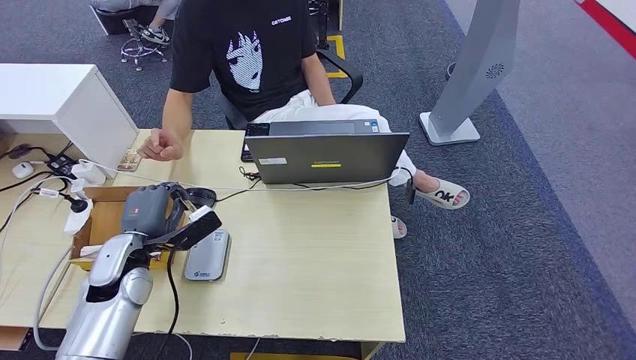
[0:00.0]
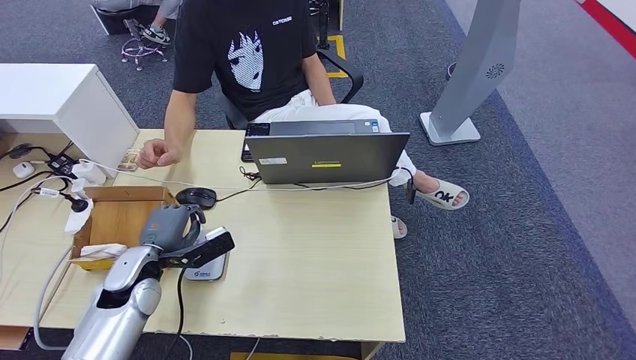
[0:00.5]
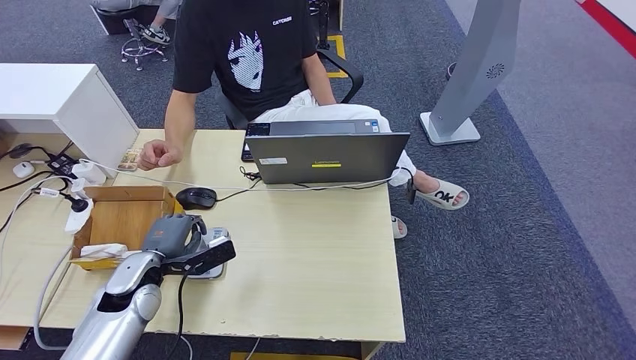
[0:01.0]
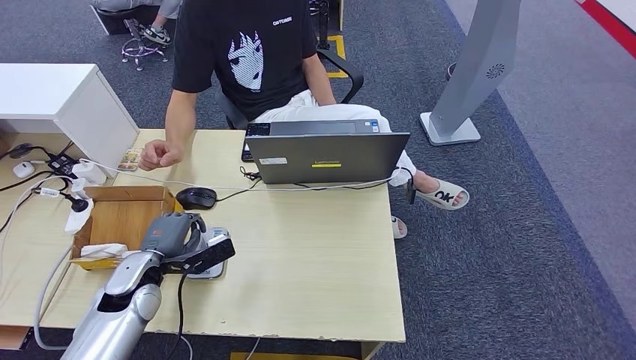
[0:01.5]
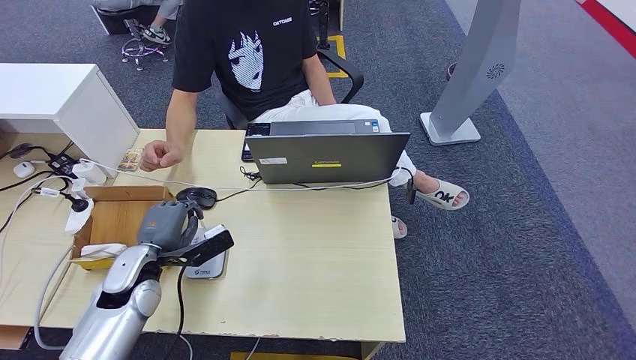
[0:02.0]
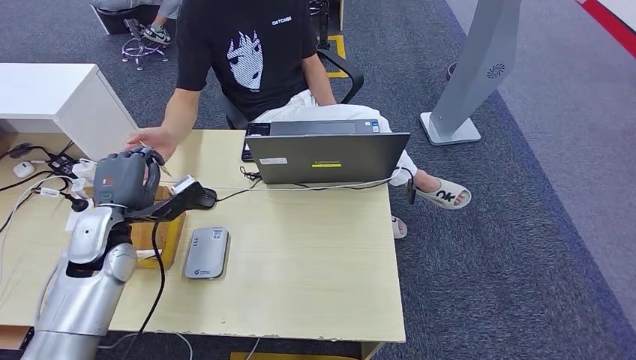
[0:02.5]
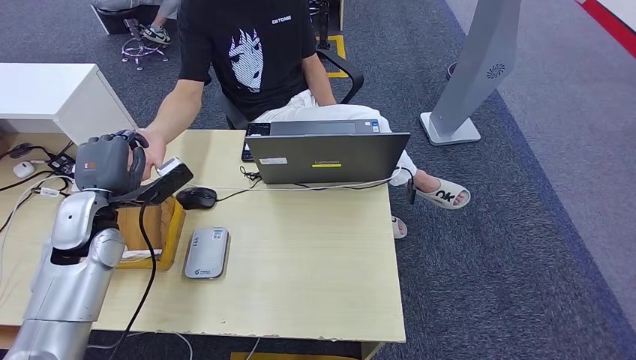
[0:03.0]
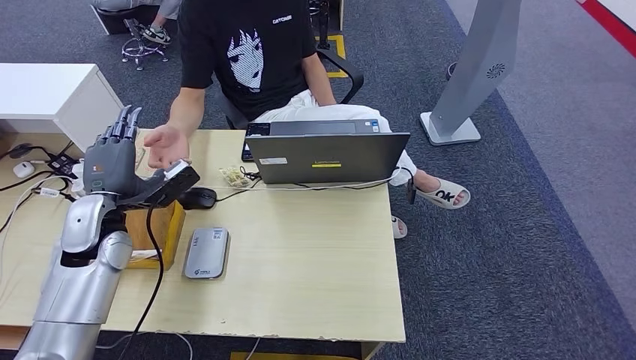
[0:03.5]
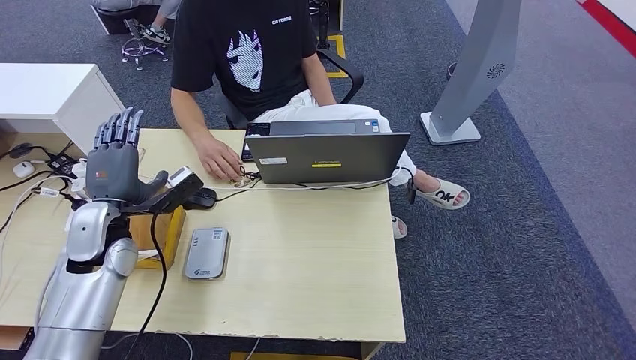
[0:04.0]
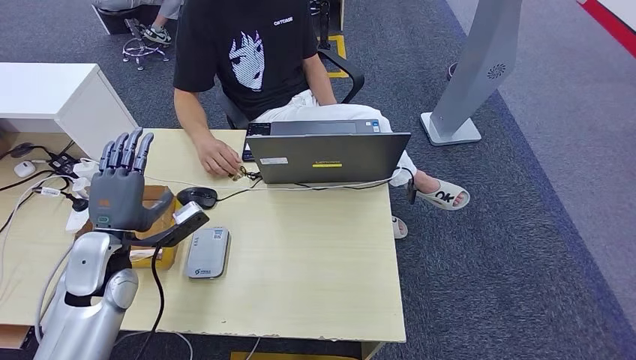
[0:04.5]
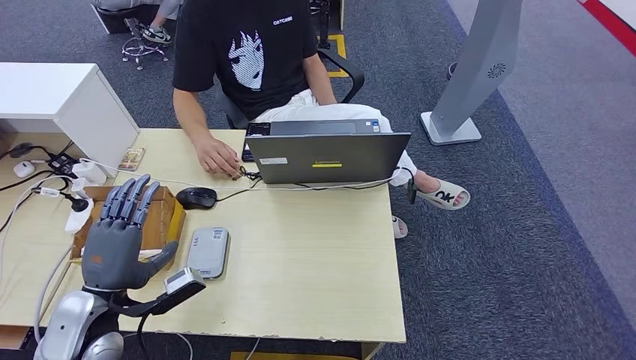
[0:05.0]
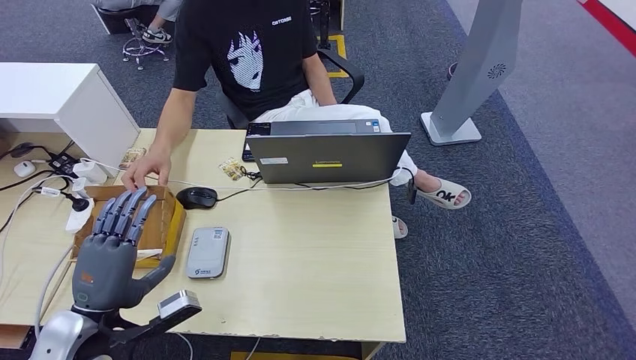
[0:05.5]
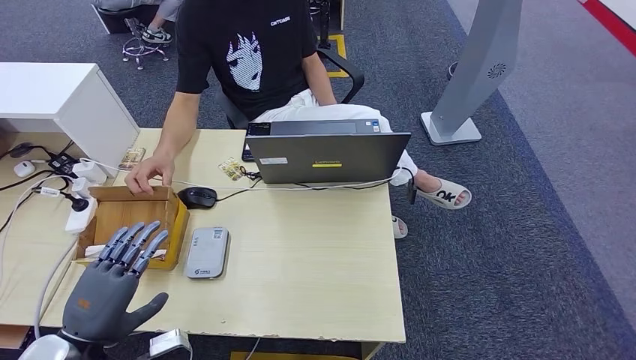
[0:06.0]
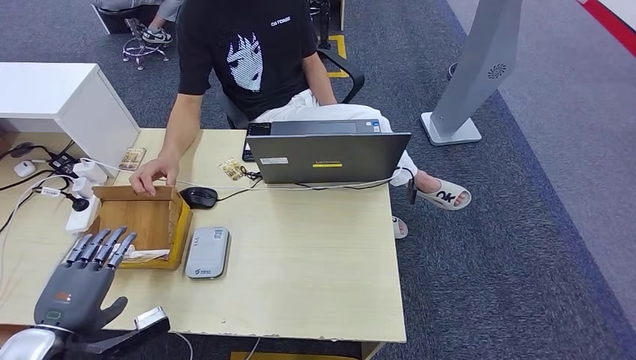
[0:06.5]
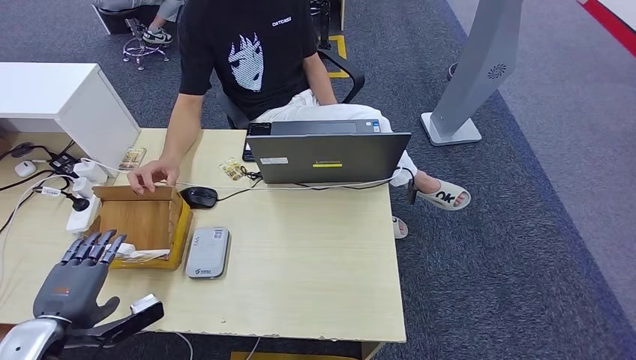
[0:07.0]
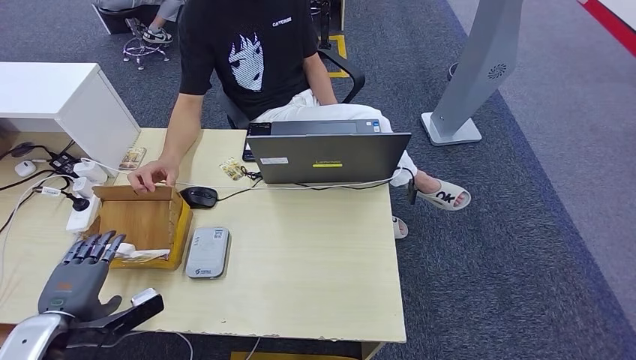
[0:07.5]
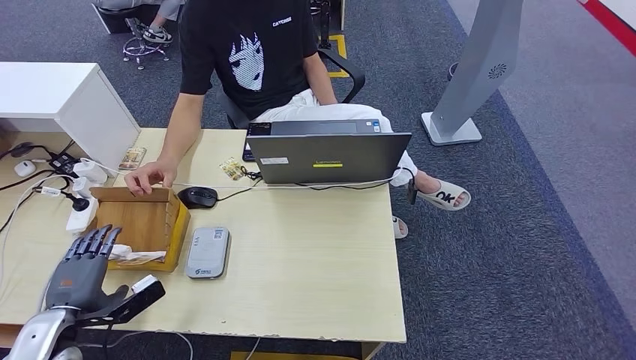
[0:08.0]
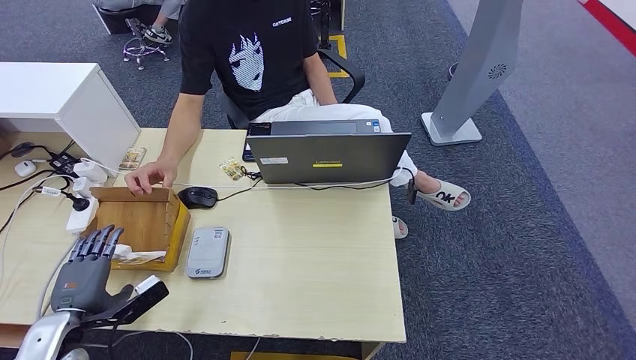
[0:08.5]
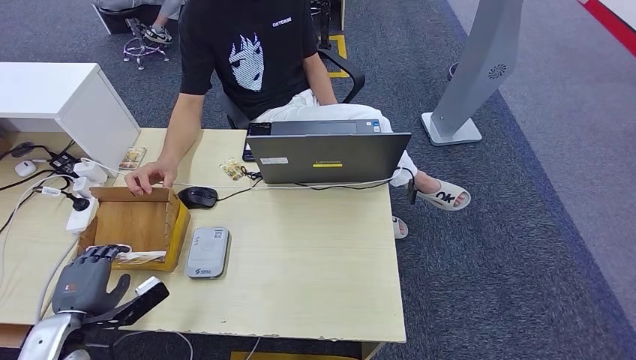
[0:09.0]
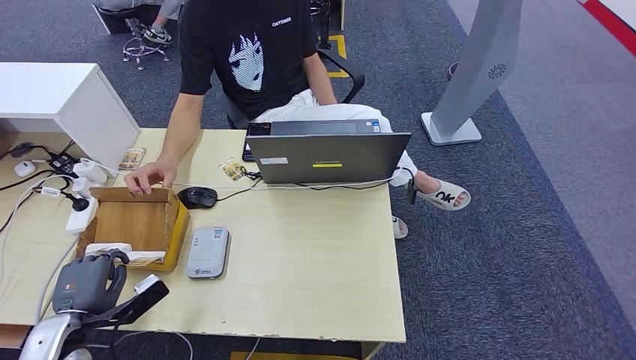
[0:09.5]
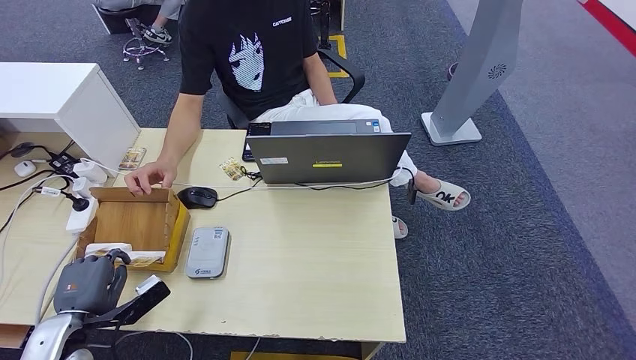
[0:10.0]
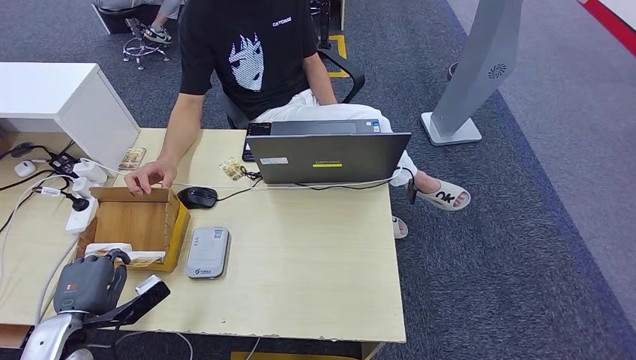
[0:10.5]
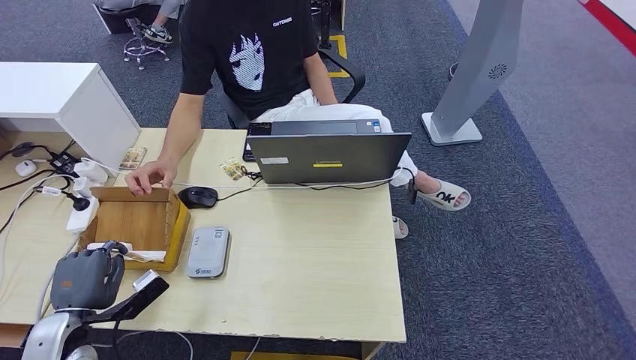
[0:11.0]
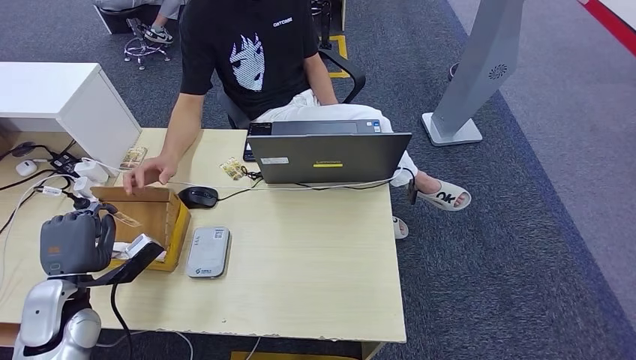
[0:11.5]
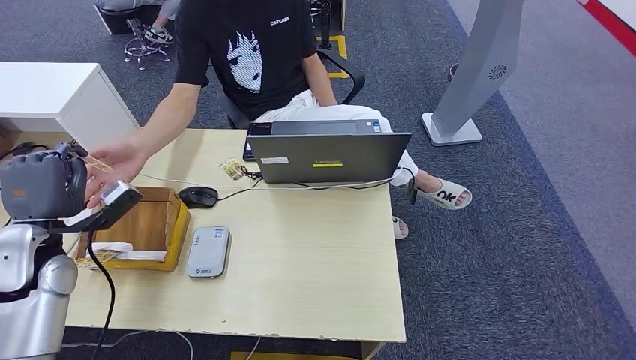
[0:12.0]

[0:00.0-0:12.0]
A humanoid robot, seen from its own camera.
Step, 0:00.0 to 0:02.0: Place the ID card on the card reader.
Step, 0:02.5 to 0:05.5: Hand the ID card to the person.
0:00.0 to 0:02.0: The hands stay close to where they were, moving slightly.
0:02.0 to 0:04.0: The left hand moves upward, approximately 10 cm.
0:04.0 to 0:06.0: The left hand moves backward, some 20 cm.
0:06.0 to 0:08.0: The left hand moves to the left, downward and forward, approximately 10 cm.
0:08.0 to 0:10.0: There are only small adjustments of the hands.
0:10.0 to 0:12.0: The left hand travels upward and forward by approximately 15 cm.

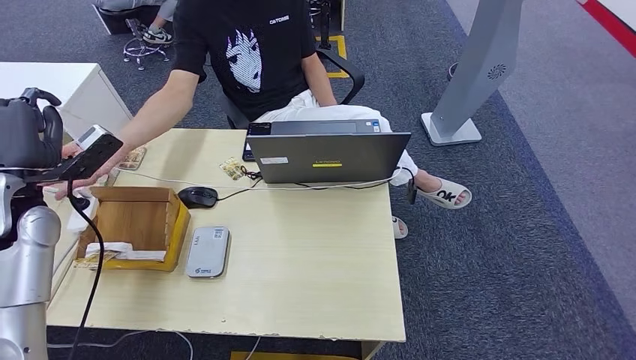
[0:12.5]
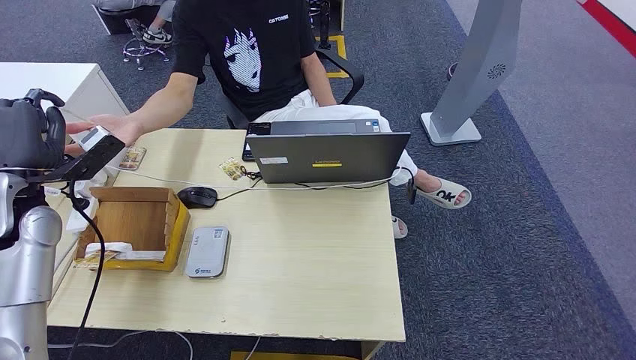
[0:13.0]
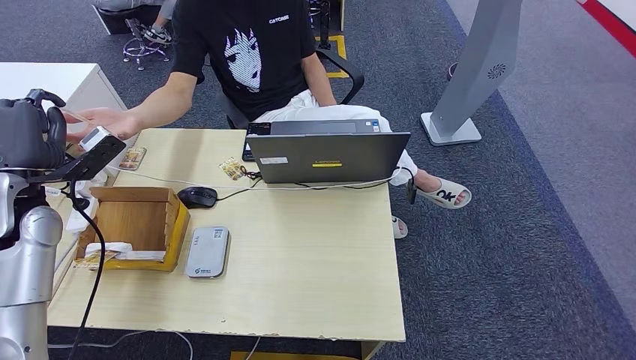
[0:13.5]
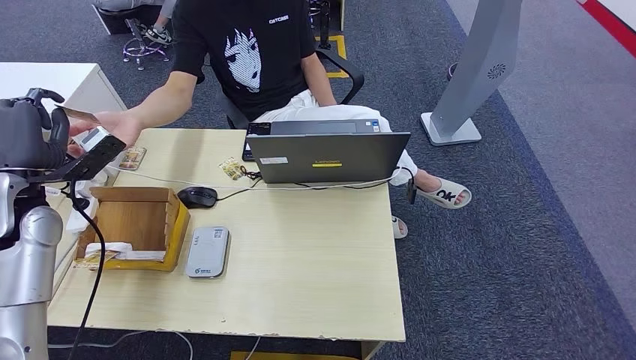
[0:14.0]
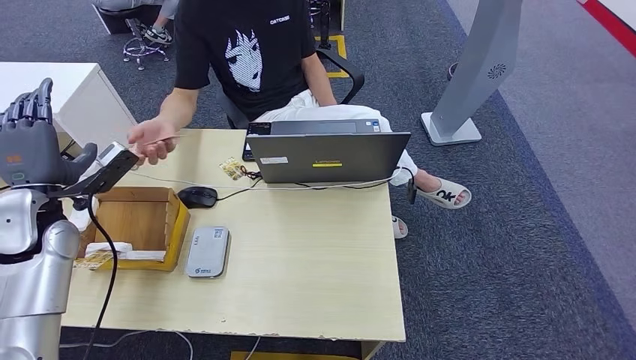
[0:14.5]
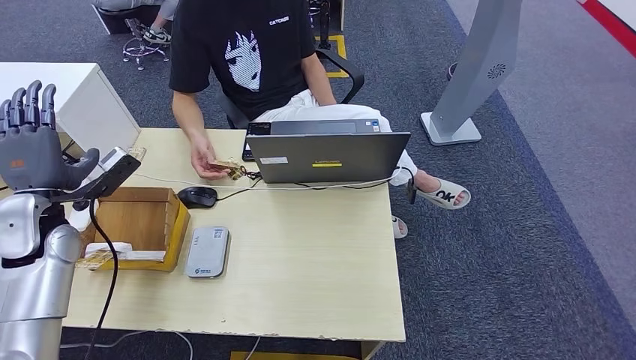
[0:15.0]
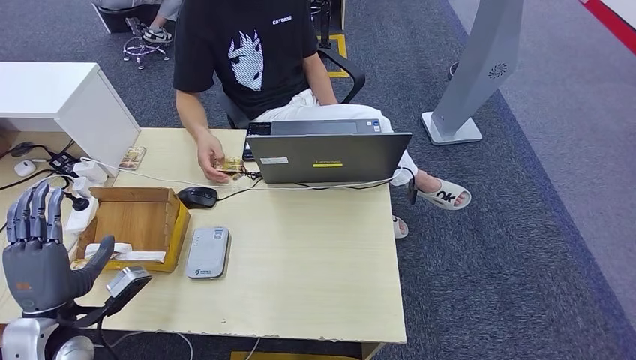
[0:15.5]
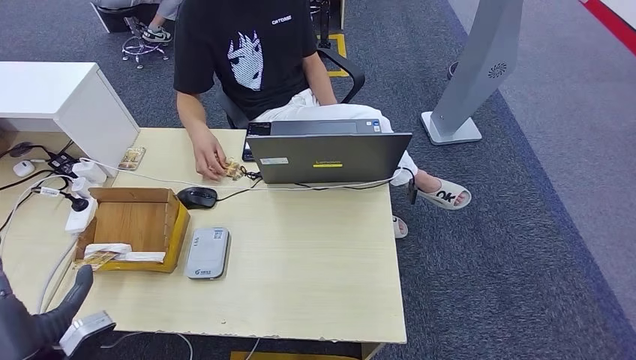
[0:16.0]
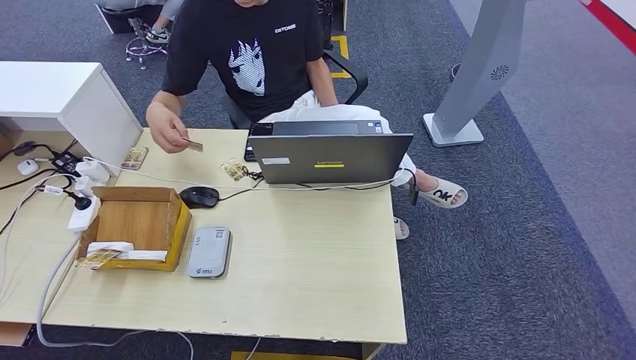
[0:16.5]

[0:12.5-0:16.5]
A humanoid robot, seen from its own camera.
Step, 0:13.0 to 0:16.5: Hand the room key to the person.
0:12.5 to 0:14.5: The hands make only small movements.
0:14.5 to 0:16.5: The left hand goes some 35 cm backward and downward.
